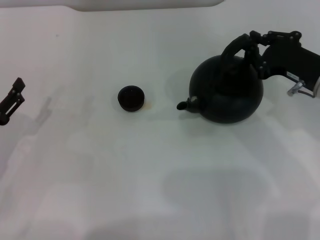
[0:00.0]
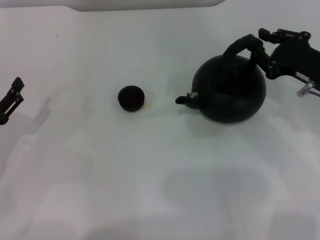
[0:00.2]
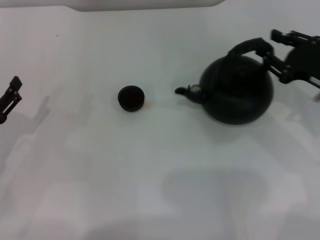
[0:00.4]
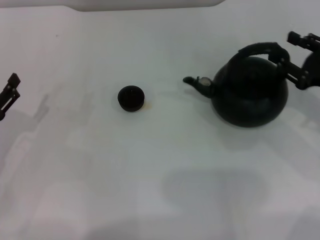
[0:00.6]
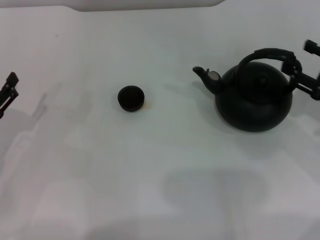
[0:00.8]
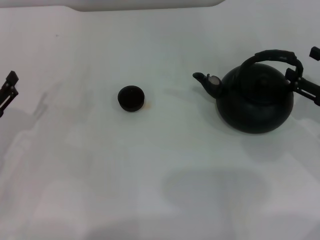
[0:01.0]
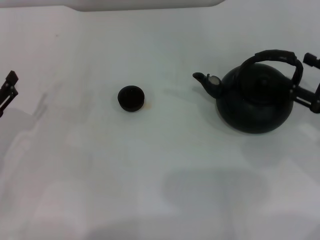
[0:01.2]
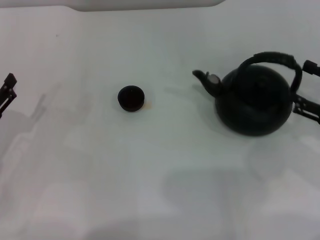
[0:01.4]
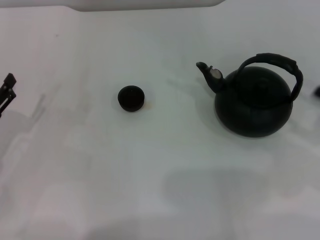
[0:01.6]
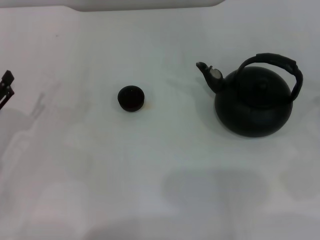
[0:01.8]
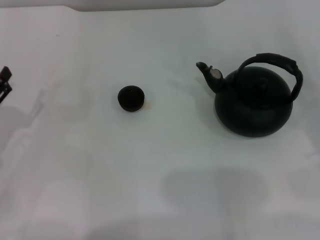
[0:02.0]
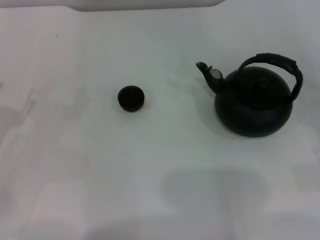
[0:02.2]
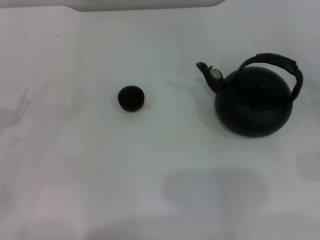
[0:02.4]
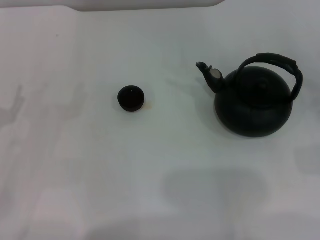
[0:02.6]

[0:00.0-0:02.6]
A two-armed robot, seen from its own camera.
Task of the whole recording: Grasp the handle of the teapot with one hand and pour tea into the teacup.
0:00.0 to 0:01.2: The right gripper shifts some 10 cm to the right and backward, and opens up.
0:01.2 to 0:02.6: The right gripper is displaced to the right by approximately 5 cm.
